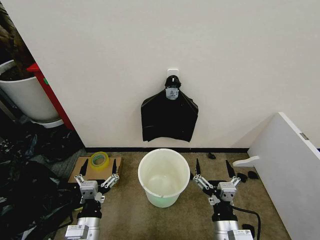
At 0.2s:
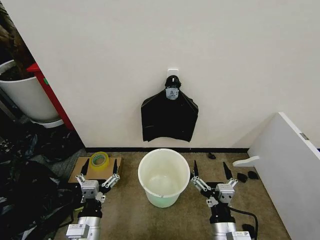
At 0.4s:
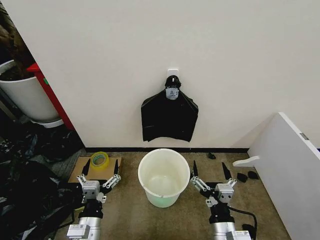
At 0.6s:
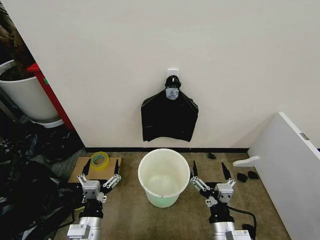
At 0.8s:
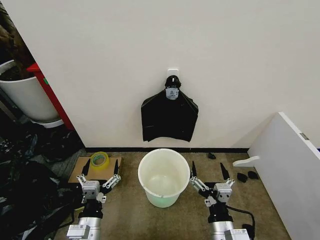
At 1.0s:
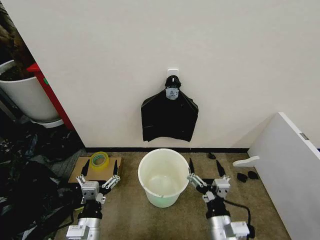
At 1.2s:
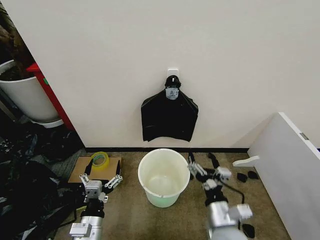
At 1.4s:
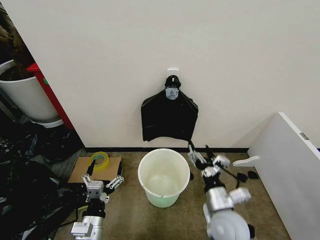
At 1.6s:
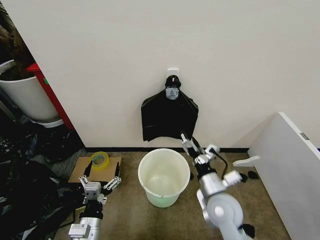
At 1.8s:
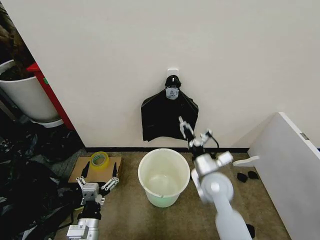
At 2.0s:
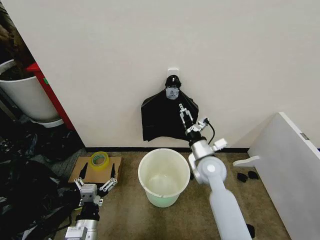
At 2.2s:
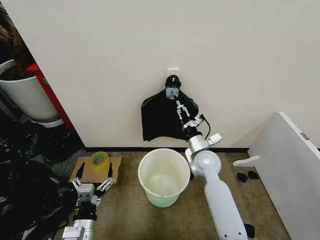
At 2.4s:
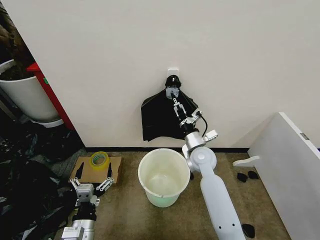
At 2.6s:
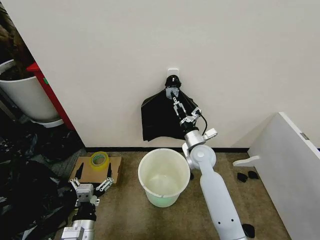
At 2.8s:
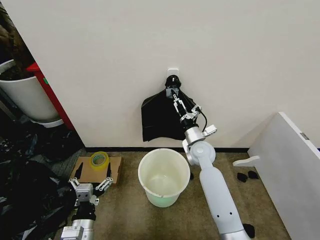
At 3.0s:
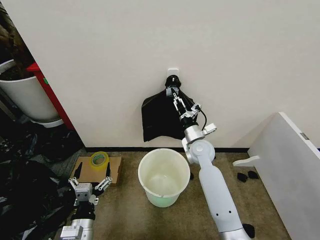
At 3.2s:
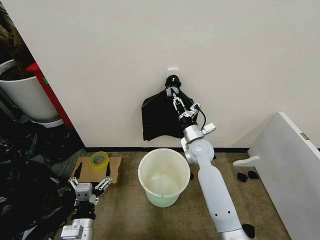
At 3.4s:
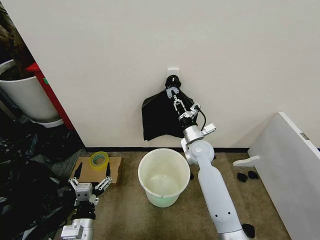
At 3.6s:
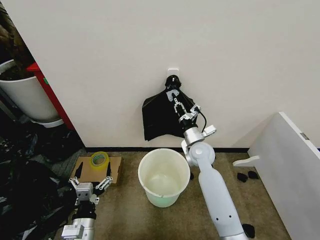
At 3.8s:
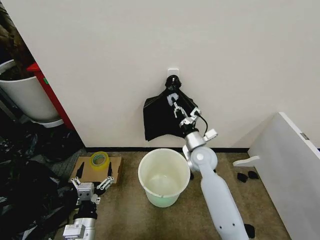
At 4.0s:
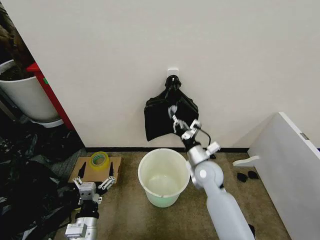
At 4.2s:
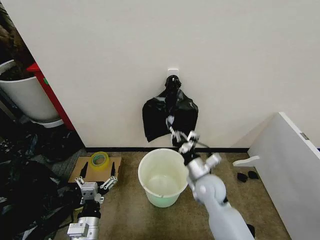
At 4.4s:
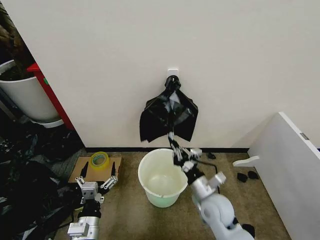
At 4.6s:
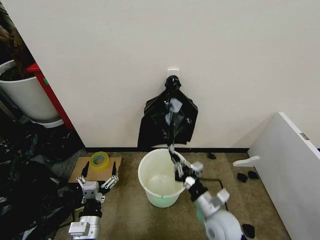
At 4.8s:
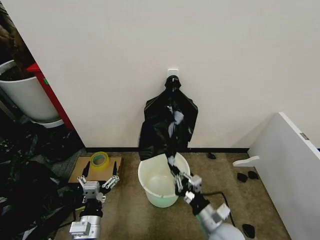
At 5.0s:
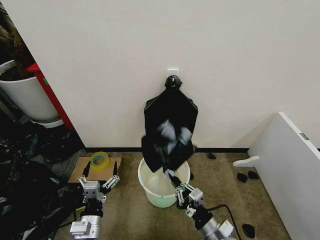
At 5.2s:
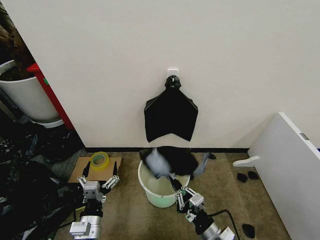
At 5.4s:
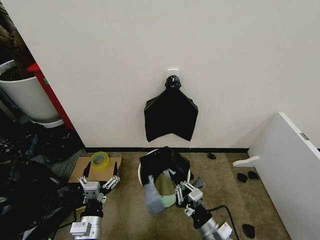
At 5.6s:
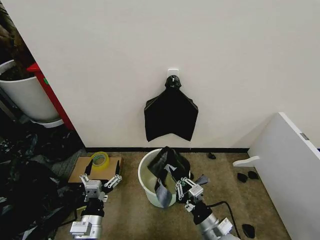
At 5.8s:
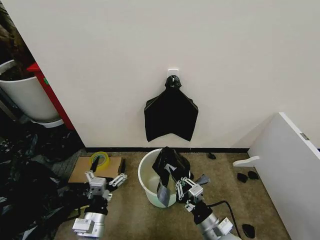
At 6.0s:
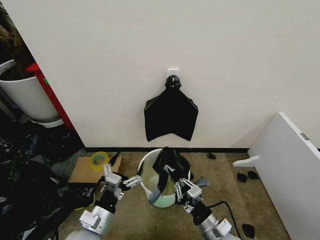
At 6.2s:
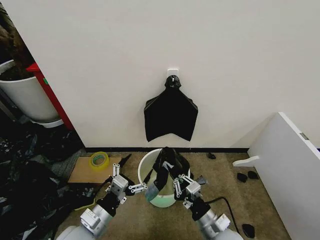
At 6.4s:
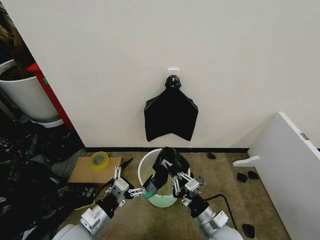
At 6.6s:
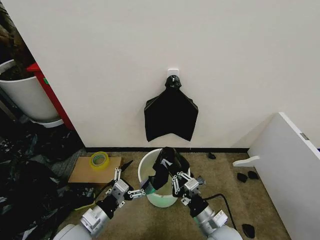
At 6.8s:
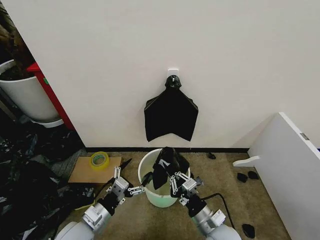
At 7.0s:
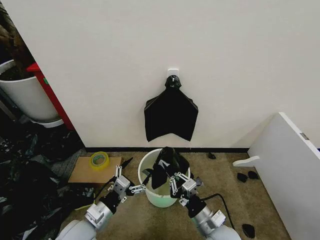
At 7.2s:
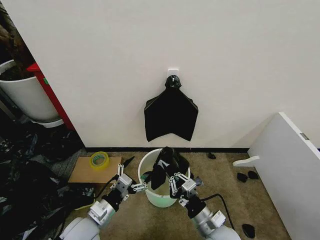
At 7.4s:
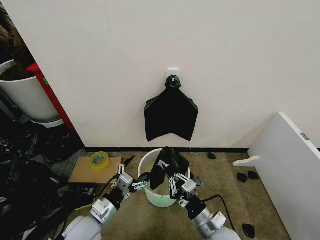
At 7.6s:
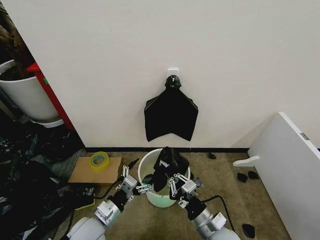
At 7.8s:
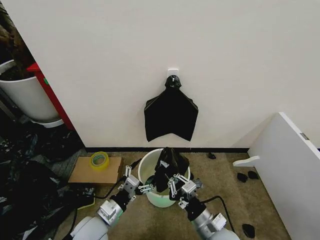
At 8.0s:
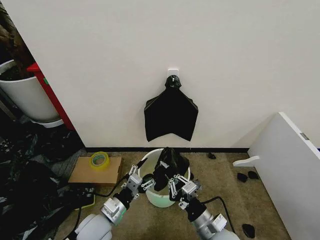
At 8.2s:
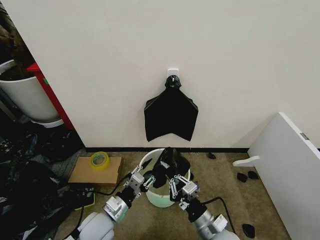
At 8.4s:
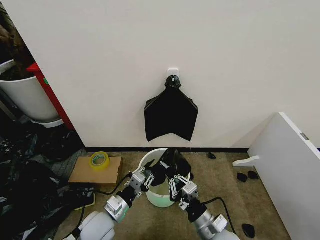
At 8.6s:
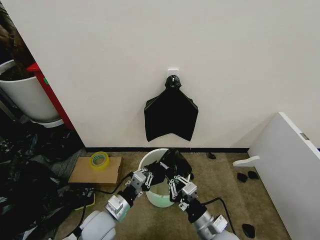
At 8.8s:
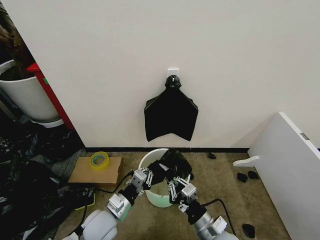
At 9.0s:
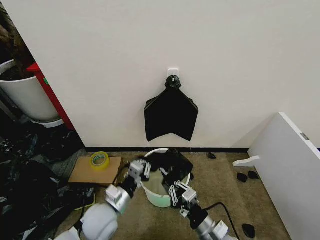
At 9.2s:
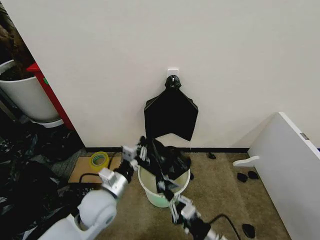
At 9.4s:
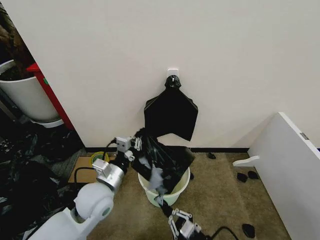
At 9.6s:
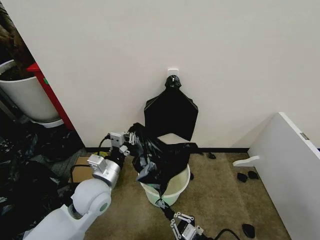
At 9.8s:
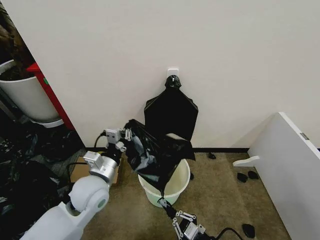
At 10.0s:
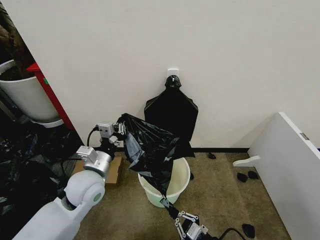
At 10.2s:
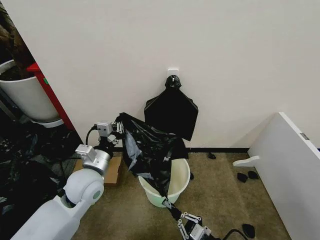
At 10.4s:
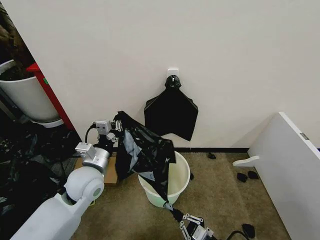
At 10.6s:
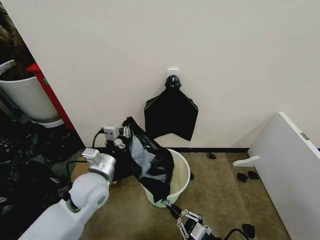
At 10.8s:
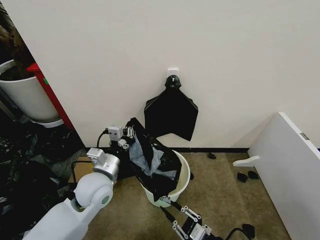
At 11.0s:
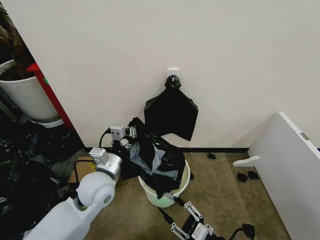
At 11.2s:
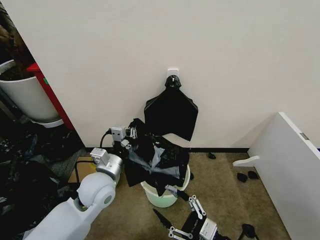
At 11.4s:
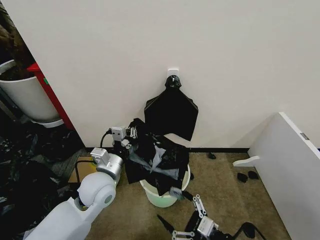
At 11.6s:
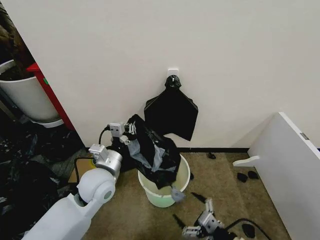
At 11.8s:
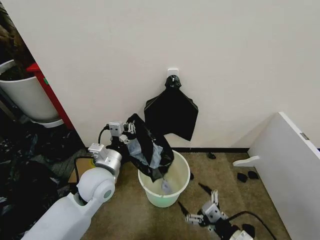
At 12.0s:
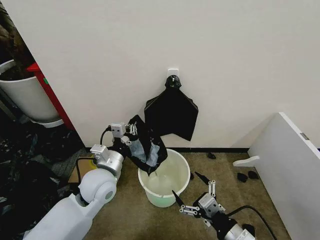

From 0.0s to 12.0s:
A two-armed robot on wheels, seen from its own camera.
Task of the whole recording: Place the garbage bag over the trash bin.
From 1.6s to 3.0s: The right gripper goes approximately 20 cm forward, and closes.
From 3.0s to 4.4s: The right gripper travels backward by some 20 cm, and closes its fingers.
From 4.4s to 6.0s: The right gripper goes approximately 10 cm backward.
From 6.0s to 7.6s: The grippers stay close to where they were, moving slightly.
From 7.6s to 9.0s: The left gripper ends up about 5 cm from where it was, and closes its fingers.
From 9.0s to 10.4s: The left gripper goes some 10 cm upward and forward; the right gripper heads to the right and backward, covering approximately 10 cm.
From 10.4s to 12.0s: The right gripper is displaced upward by some 10 cm, and opens up.

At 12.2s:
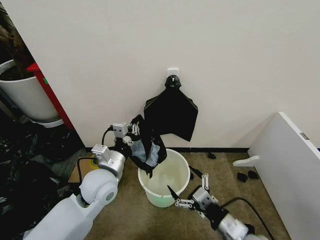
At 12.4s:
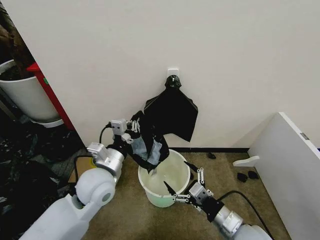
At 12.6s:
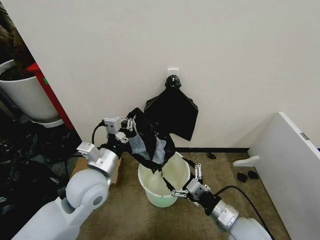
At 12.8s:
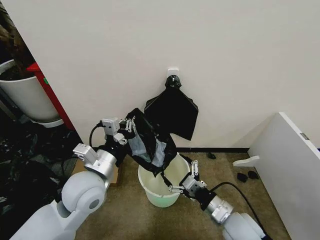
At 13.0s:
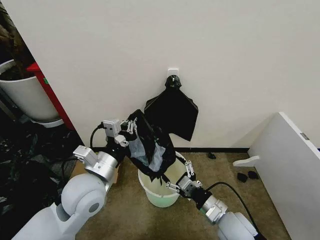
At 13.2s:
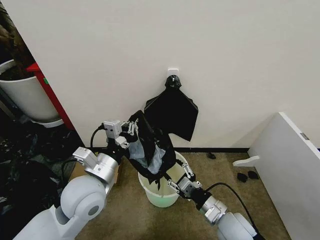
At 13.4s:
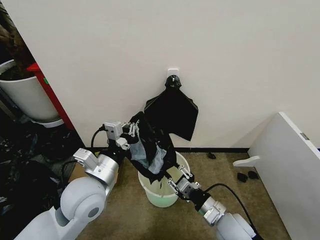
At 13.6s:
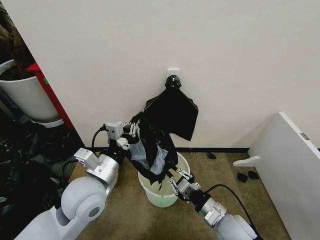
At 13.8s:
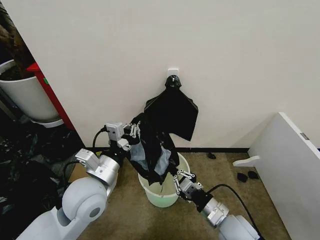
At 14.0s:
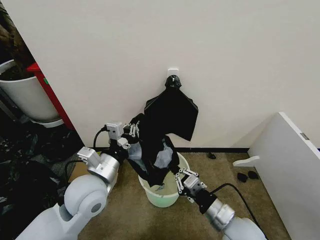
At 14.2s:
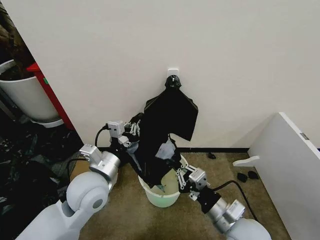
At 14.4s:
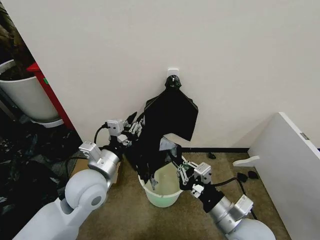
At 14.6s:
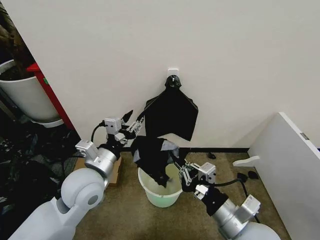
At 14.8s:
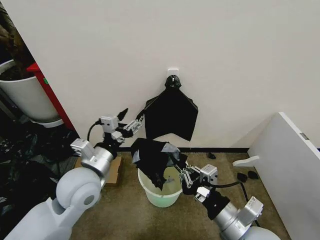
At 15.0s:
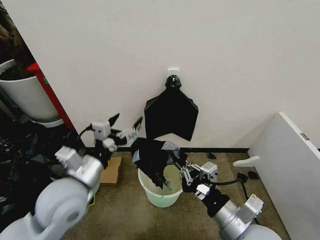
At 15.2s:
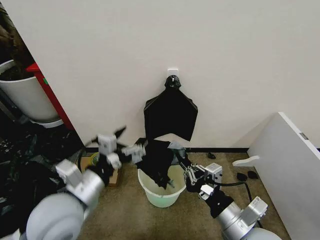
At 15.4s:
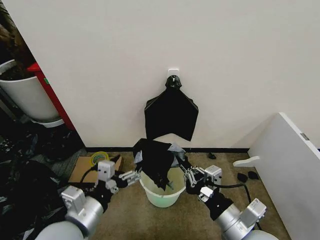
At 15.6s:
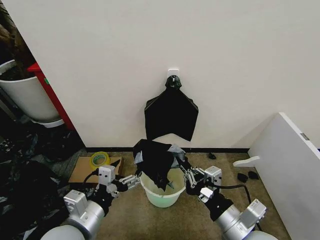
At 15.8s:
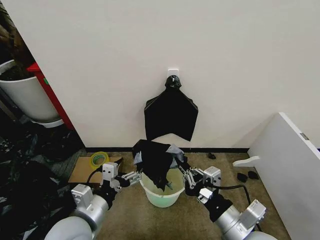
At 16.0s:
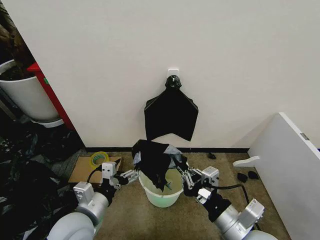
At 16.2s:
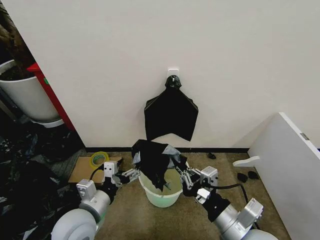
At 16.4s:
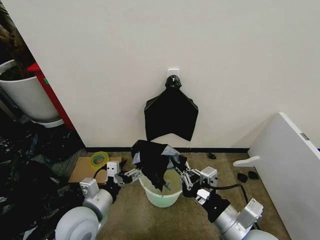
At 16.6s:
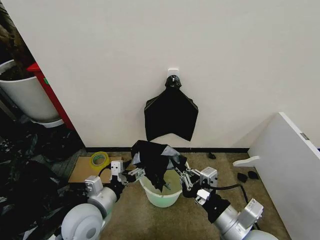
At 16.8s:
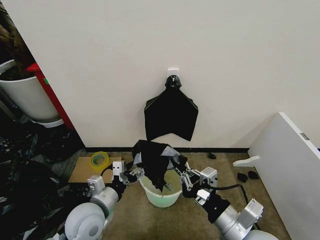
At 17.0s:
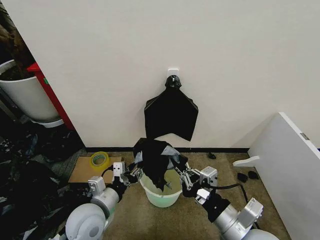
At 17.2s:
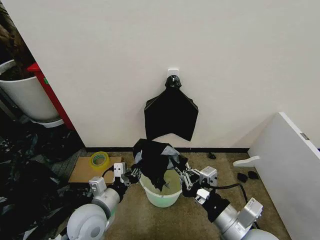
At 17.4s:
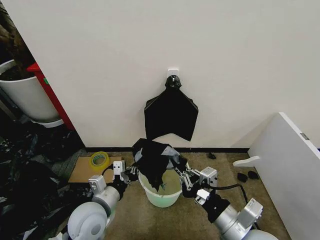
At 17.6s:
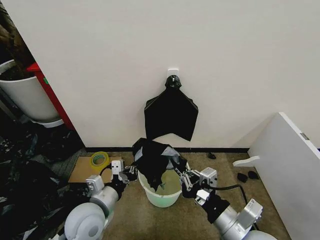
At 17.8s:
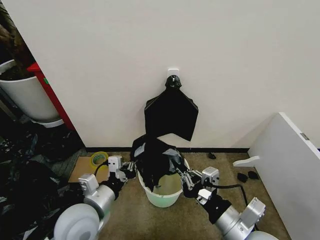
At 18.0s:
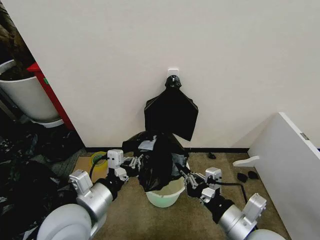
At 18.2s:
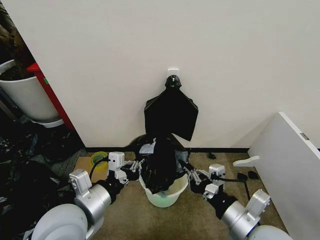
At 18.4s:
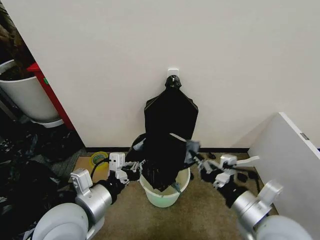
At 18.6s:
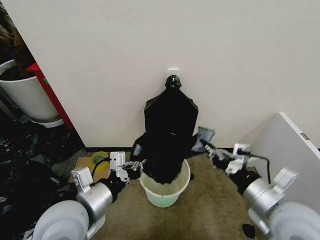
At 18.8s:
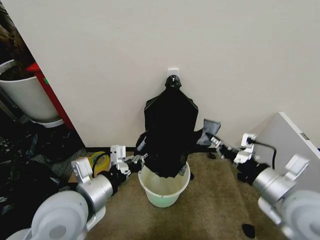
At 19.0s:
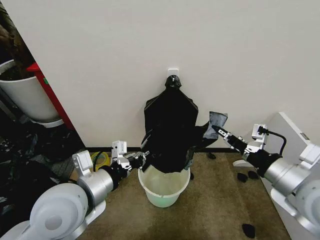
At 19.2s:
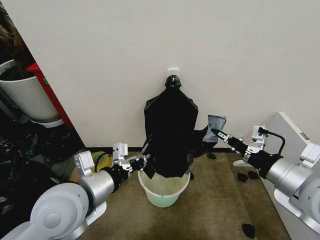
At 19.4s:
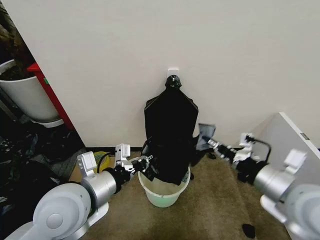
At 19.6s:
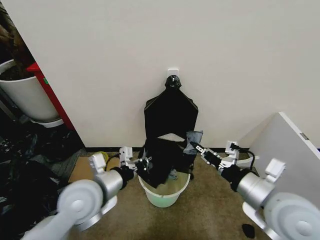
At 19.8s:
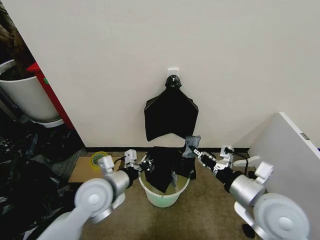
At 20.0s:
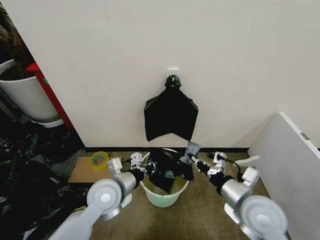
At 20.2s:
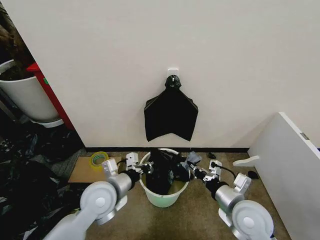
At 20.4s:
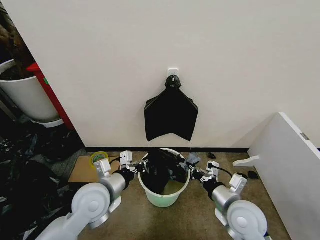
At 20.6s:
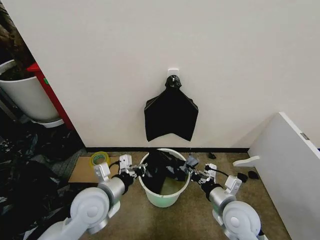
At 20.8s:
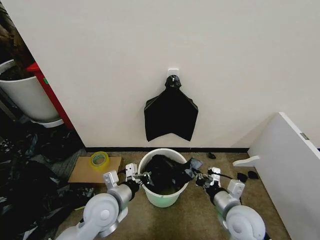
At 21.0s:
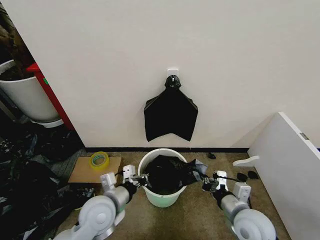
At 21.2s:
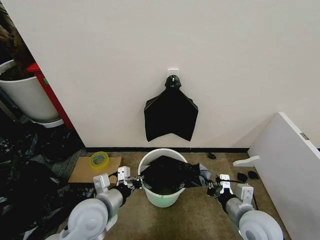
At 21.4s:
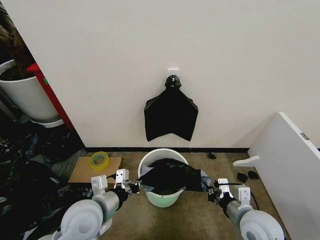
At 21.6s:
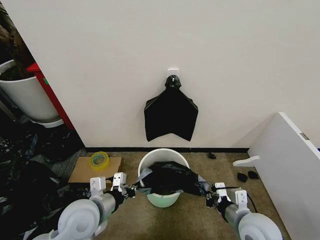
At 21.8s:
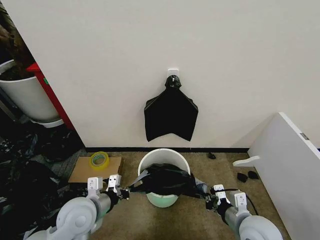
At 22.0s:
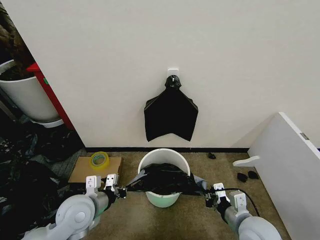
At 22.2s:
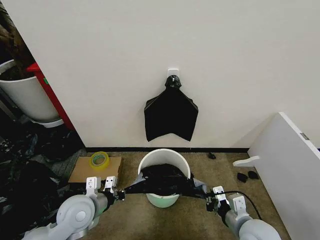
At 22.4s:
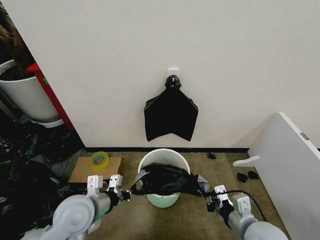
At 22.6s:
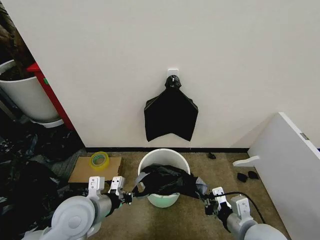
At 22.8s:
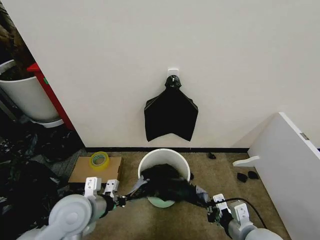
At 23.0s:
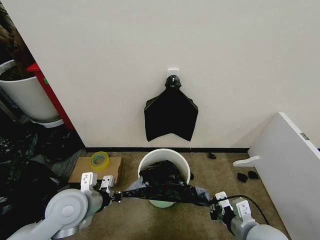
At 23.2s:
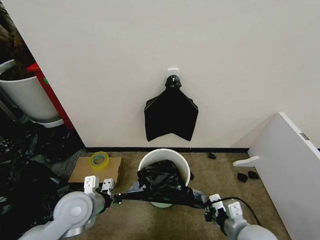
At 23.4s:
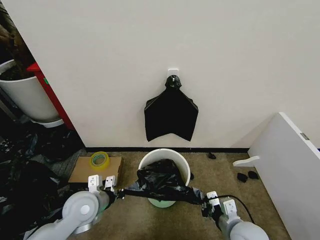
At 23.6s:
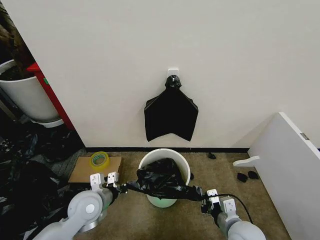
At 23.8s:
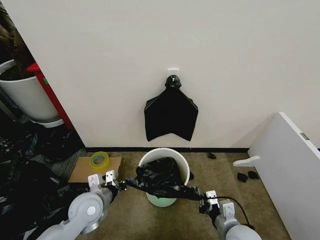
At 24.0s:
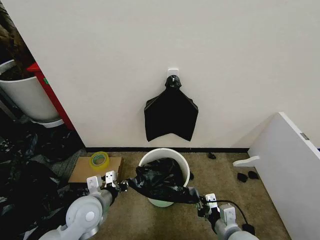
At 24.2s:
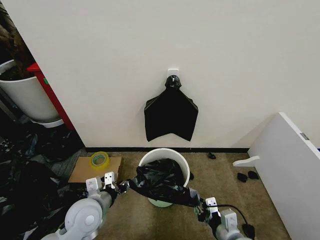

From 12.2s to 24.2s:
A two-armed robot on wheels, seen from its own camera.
Task of the whole recording: Place the garbage bag over the trash bin.
From 12.2s to 13.8s: The right gripper moves forward, approximately 10 cm, and closes; the left gripper shifts approximately 5 cm backward.
From 13.8s to 15.2s: The right gripper moves upward and backward, roughly 10 cm; the left gripper moves backward, roughly 5 cm, and opens its fingers.
From 15.2s to 16.6s: The left gripper travels downward by about 10 cm.
From 16.6s to 18.2s: The left gripper travels upward by some 10 cm, and closes up.
From 18.2s to 19.8s: The right gripper heads forward, covering some 5 cm, and reaches roughly 10 cm upward, then returns. Meanwhile the left gripper shifts some 10 cm forward and downward.
From 19.8s to 21.2s: The right gripper heads downward, covering some 10 cm, while the left gripper moves about 5 cm.
From 21.2s to 22.6s: The left gripper moves some 5 cm.
From 22.6s to 24.2s: Both grippers move downward, about 5 cm. The left gripper opens.
